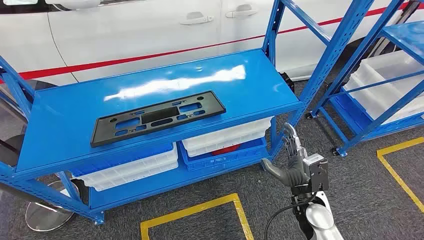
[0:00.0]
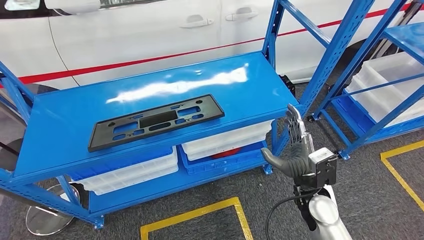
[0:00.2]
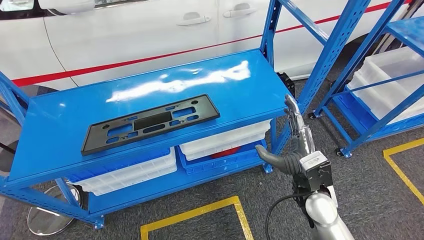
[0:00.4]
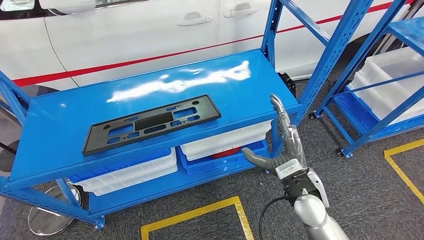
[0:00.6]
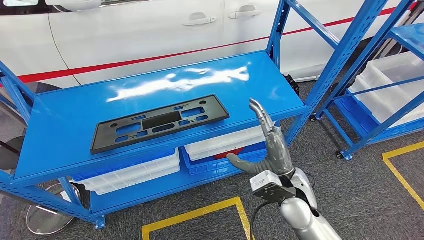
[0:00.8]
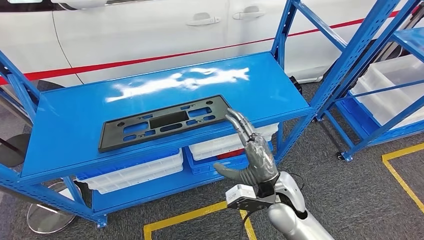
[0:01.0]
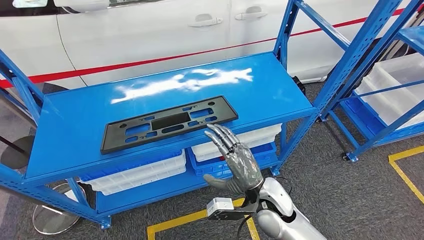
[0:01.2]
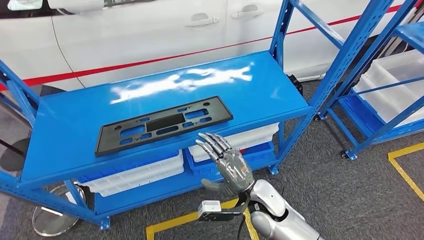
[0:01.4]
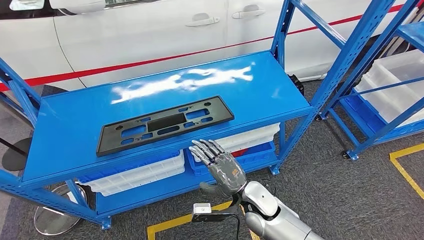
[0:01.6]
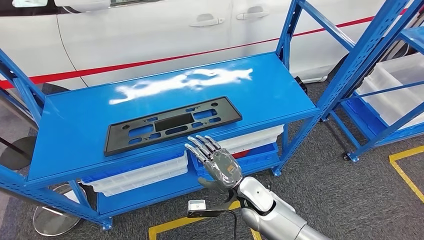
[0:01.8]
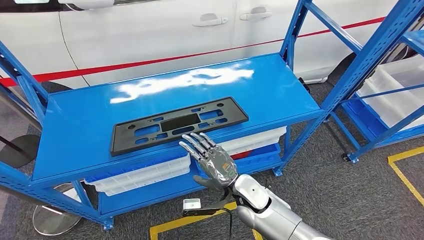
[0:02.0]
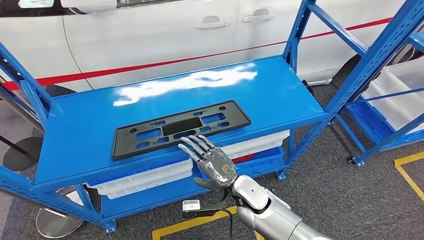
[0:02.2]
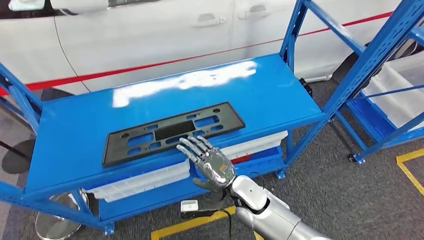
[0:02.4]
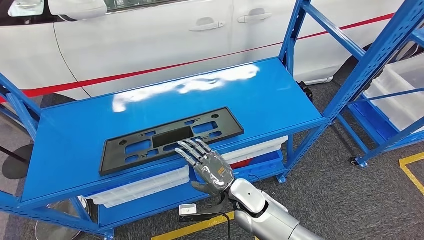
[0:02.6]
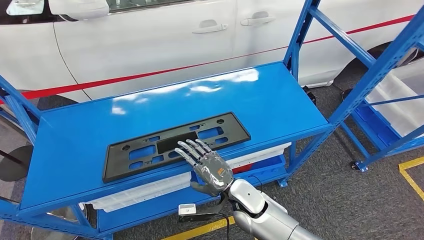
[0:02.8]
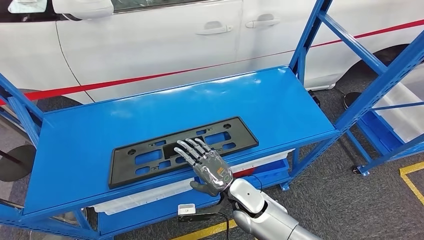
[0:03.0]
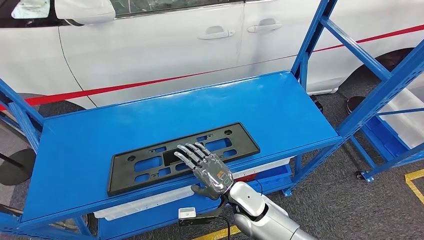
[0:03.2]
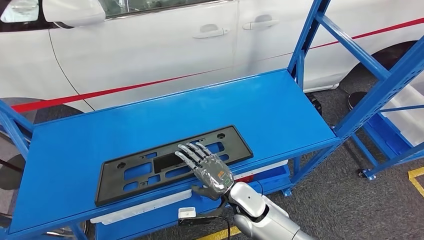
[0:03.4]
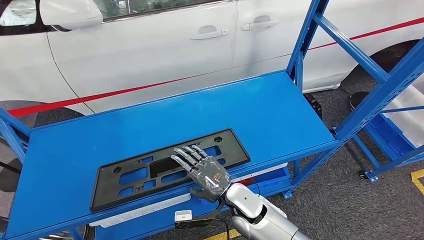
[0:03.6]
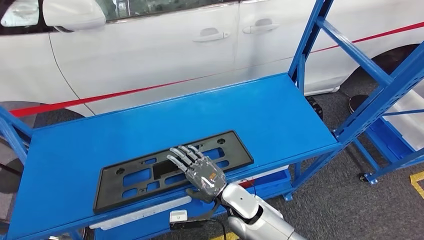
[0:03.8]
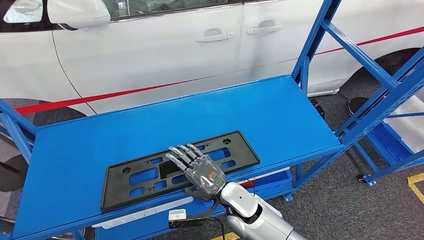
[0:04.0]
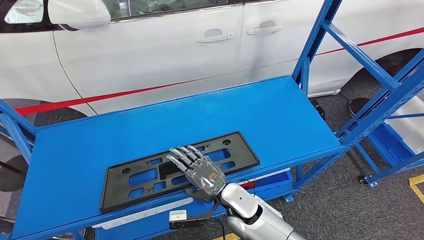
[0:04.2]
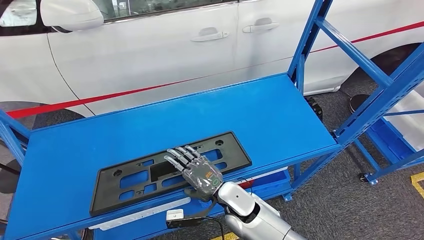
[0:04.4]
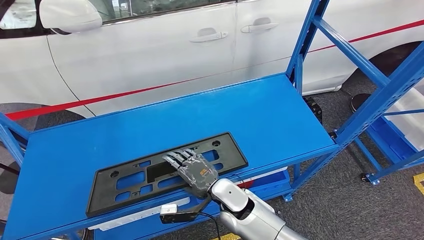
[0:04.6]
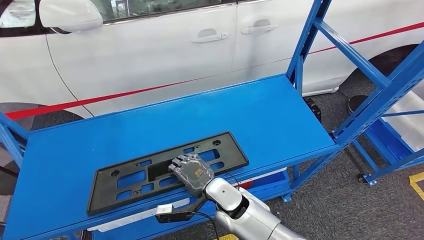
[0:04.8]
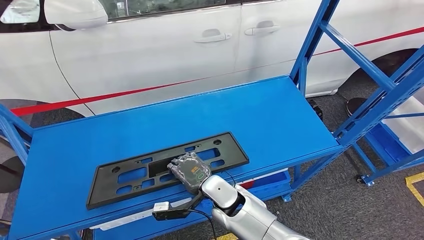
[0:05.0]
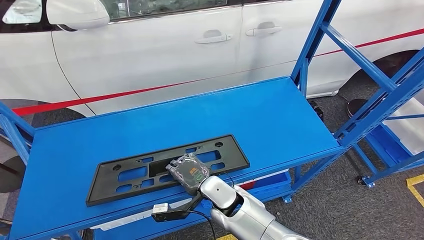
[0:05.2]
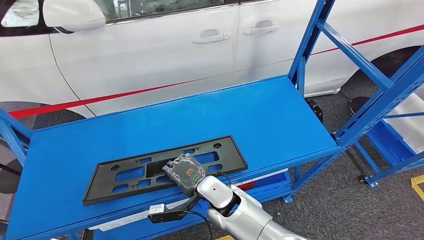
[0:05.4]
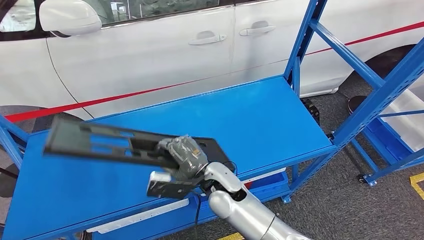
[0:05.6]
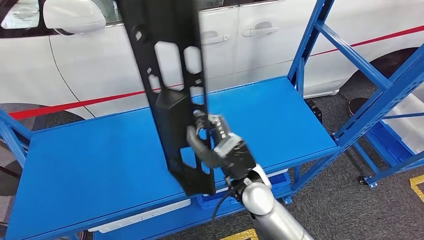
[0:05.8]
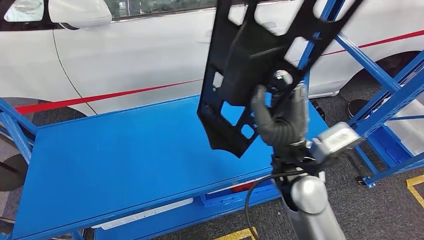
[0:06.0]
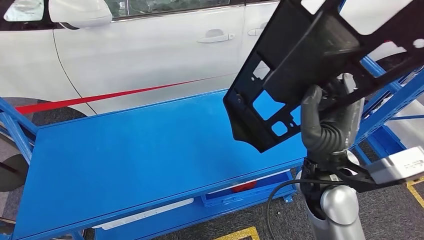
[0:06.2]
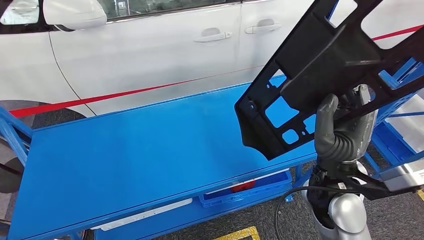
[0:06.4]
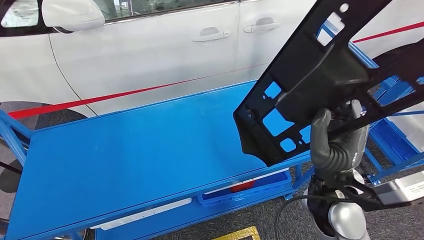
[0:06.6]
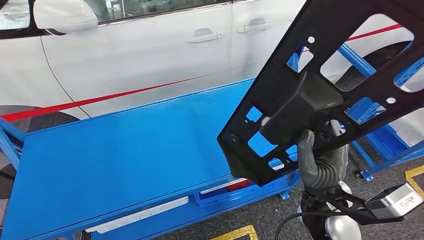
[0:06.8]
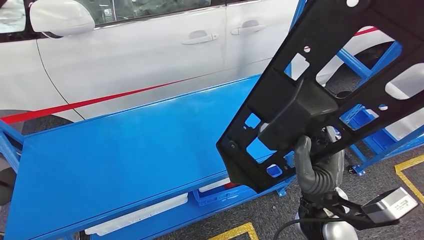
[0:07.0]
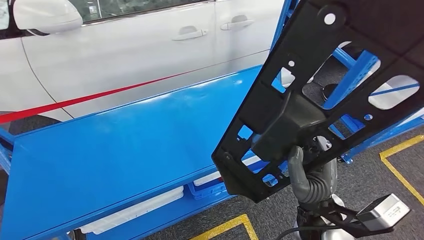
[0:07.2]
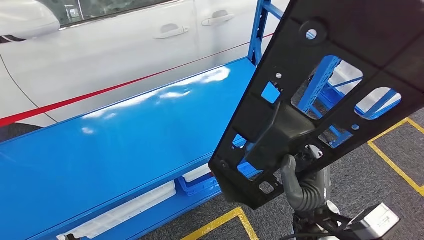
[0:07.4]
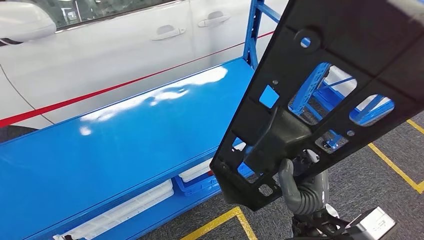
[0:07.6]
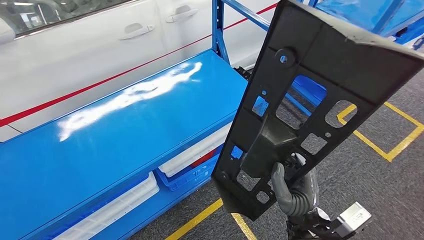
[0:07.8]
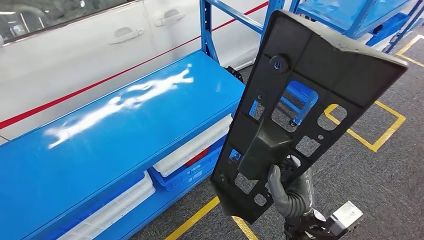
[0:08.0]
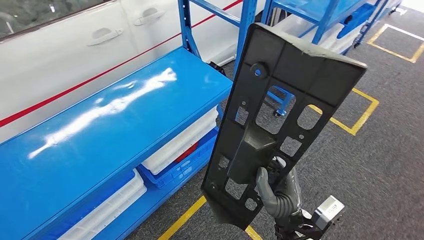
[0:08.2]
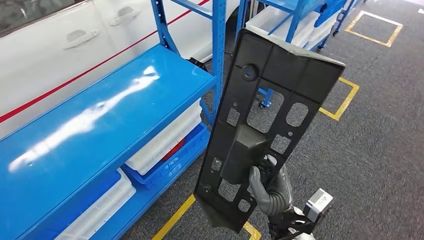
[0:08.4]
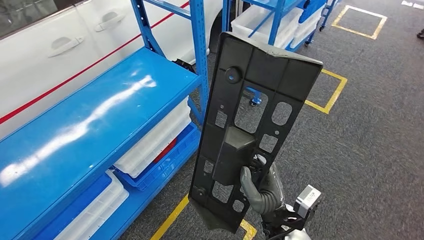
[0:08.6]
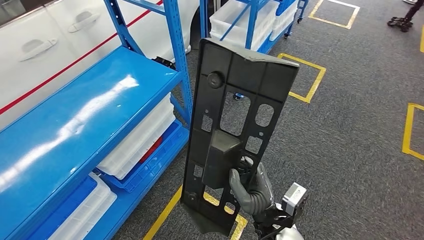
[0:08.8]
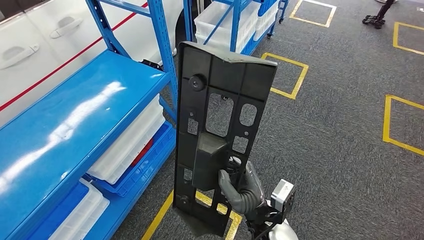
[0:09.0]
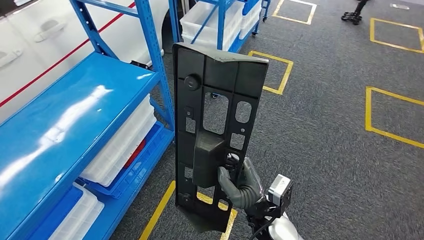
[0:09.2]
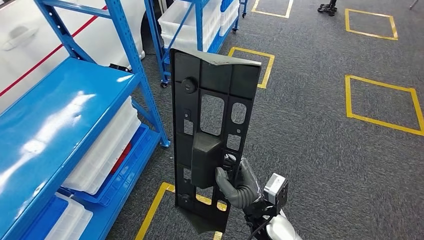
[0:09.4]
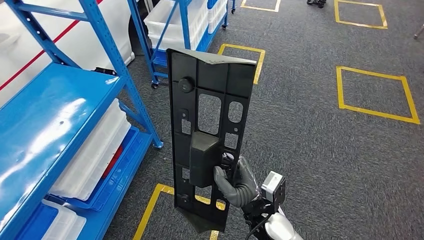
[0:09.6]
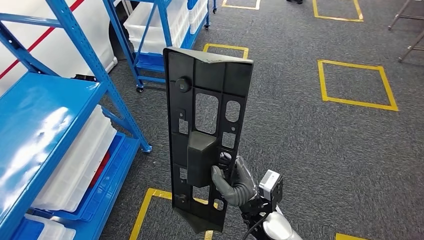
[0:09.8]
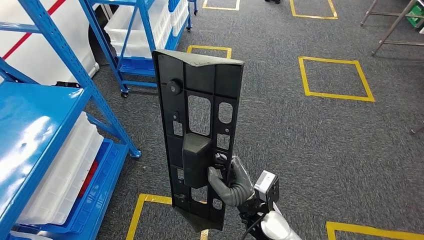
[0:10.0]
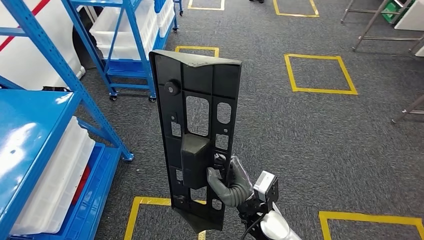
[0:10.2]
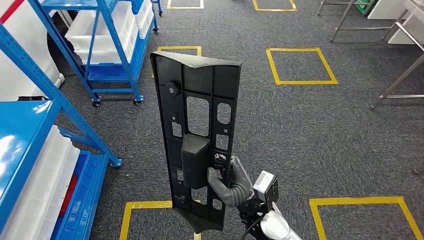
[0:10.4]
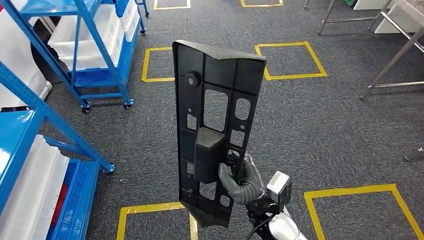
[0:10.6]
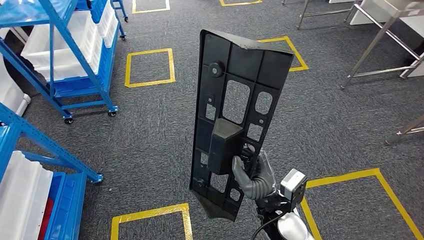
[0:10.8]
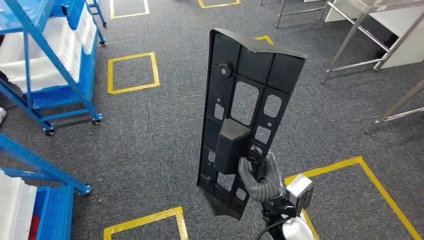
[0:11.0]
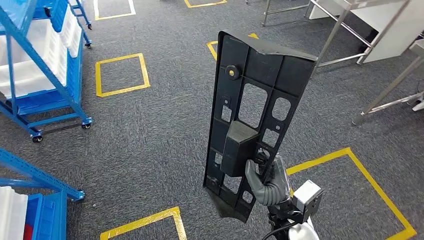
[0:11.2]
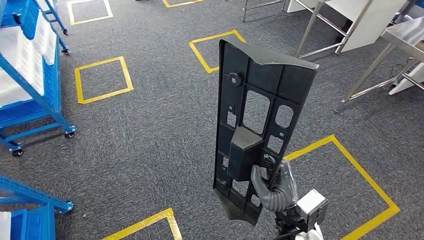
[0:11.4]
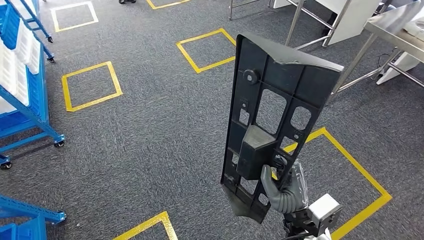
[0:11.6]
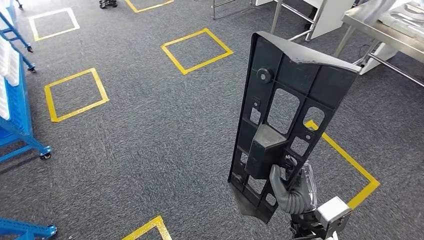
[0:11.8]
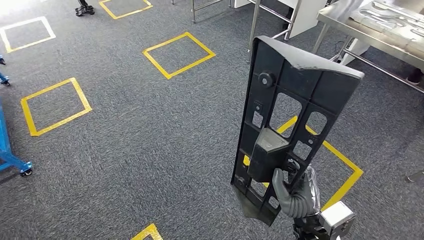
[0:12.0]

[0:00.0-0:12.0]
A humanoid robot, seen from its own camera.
Step, 0:00.0 to 0:07.6: Pick up the large material from the shelf.

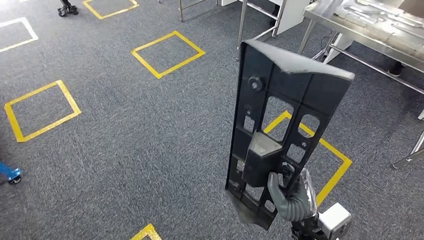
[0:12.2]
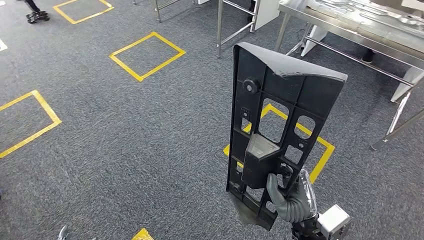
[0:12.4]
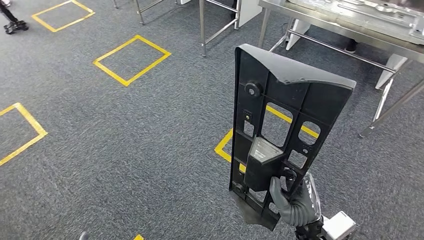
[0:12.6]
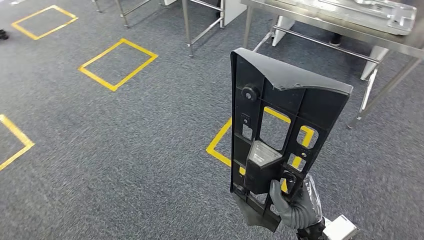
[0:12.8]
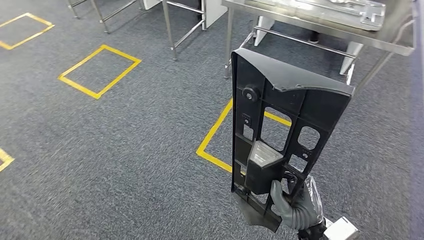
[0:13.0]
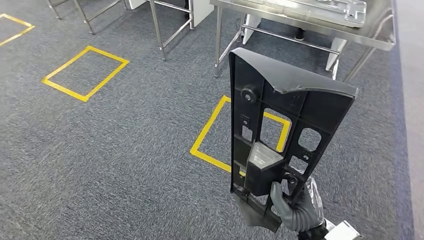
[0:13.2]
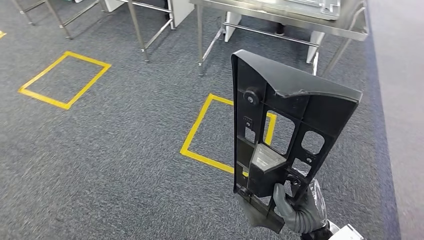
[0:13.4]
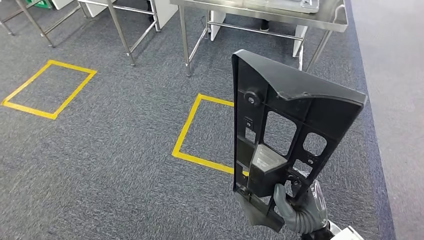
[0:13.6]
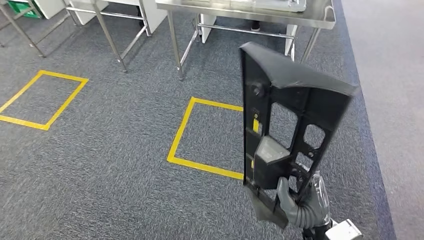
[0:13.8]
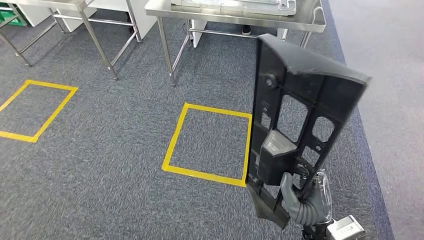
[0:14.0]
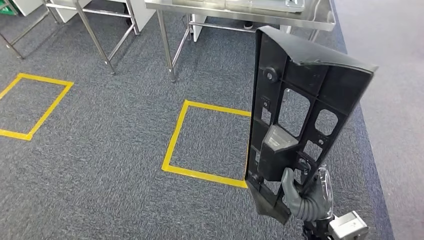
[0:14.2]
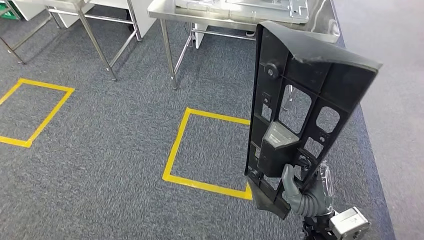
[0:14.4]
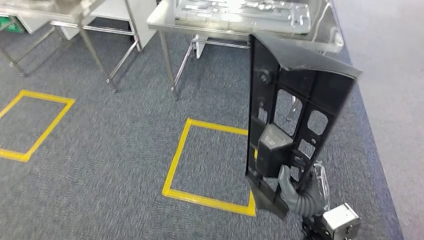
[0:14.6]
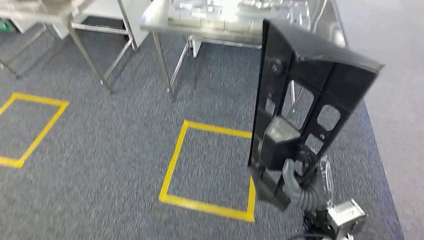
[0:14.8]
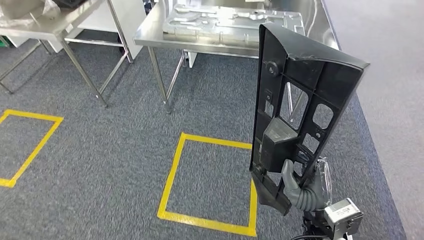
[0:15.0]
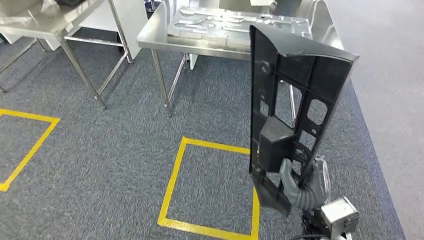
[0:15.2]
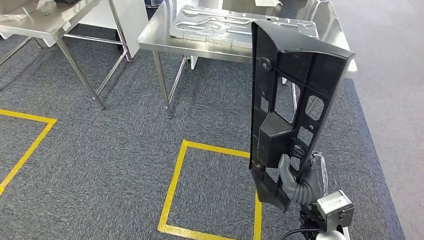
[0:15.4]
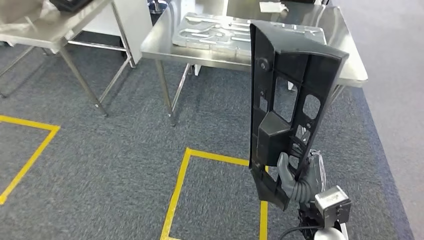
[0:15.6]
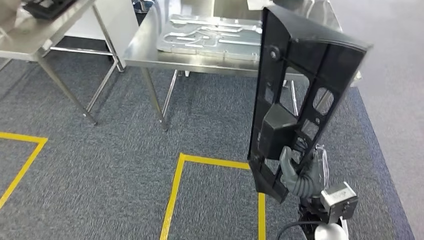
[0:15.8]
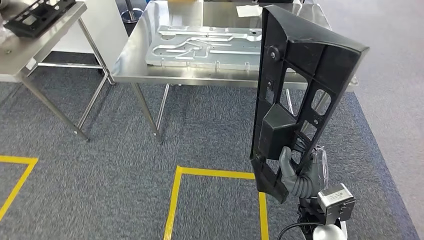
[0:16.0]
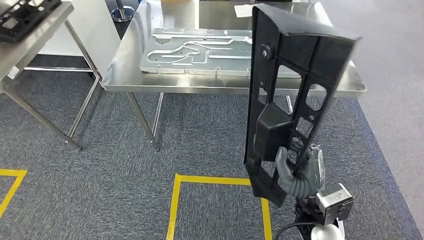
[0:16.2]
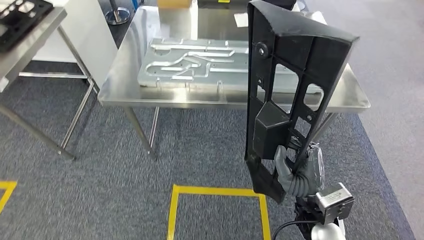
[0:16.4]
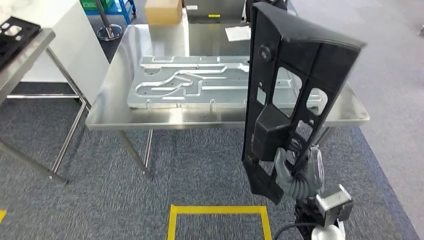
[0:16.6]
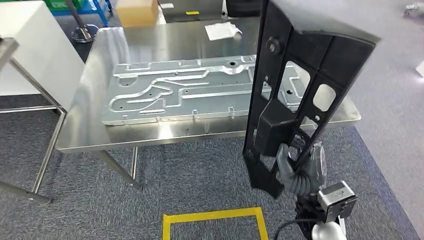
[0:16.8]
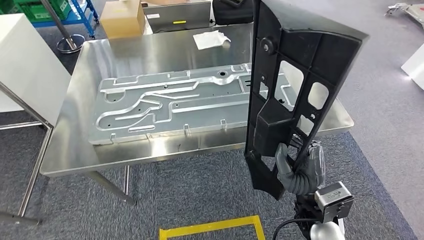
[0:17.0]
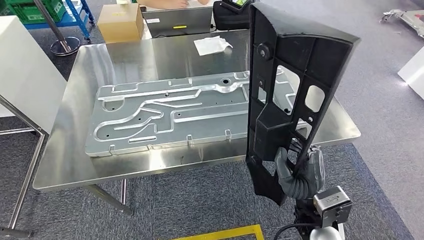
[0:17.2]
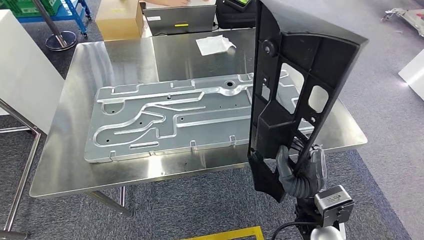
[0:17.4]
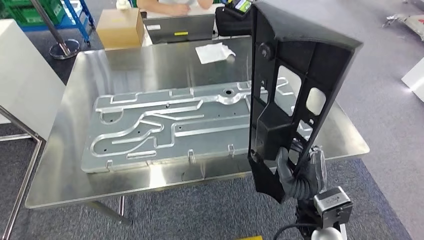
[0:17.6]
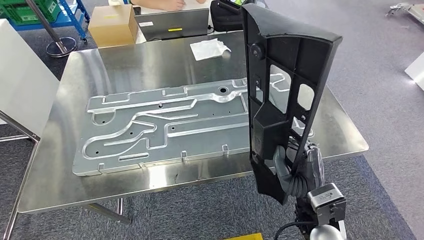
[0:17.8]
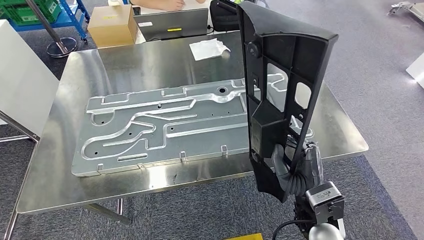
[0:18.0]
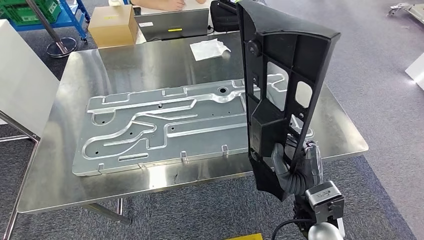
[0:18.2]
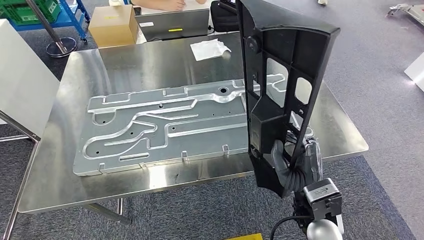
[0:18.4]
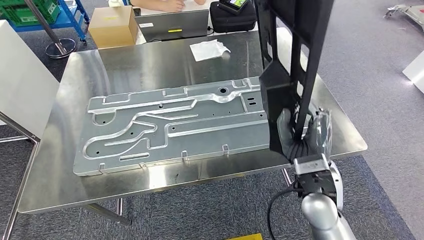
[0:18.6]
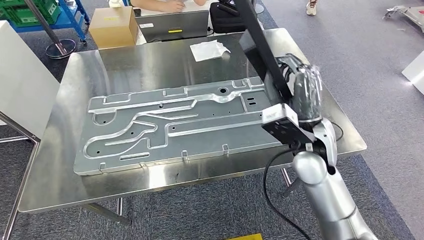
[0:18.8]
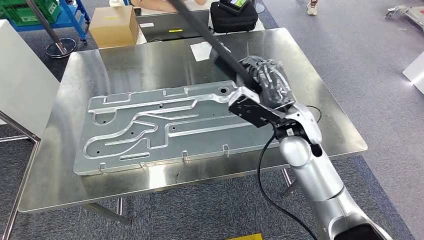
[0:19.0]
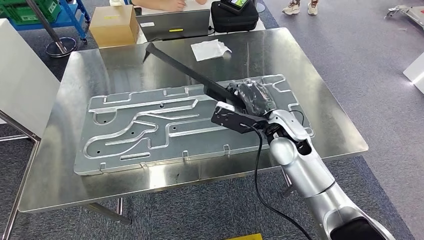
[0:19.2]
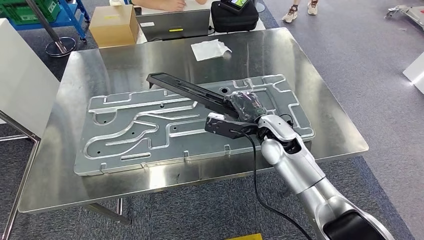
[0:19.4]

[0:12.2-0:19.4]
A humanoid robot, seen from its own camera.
Step, 0:12.2 to 0:17.4: Move the large material to the front of the workbench.
